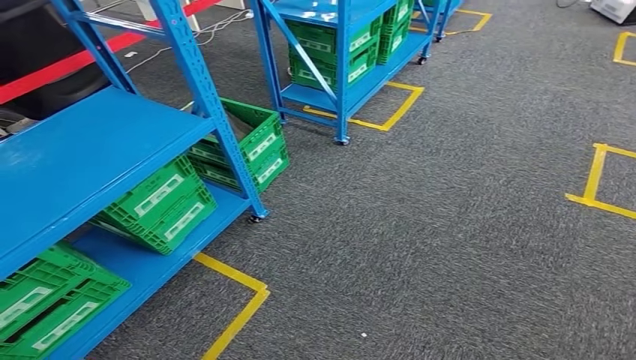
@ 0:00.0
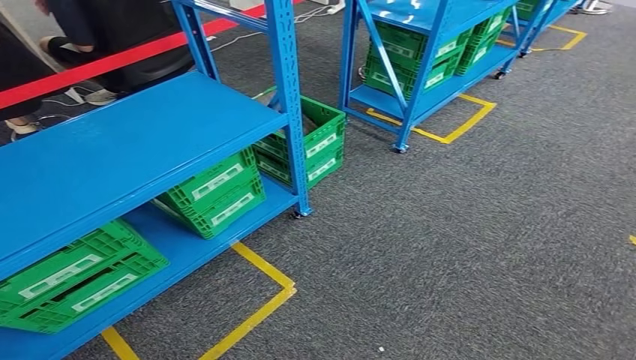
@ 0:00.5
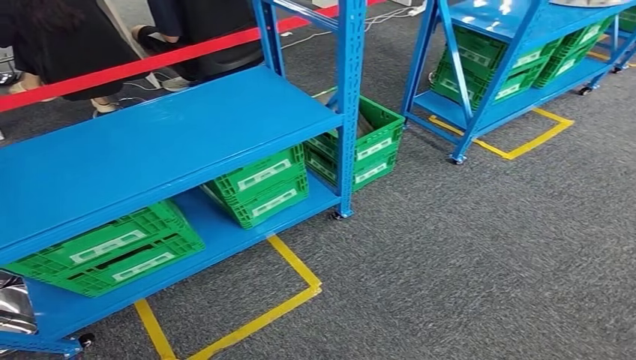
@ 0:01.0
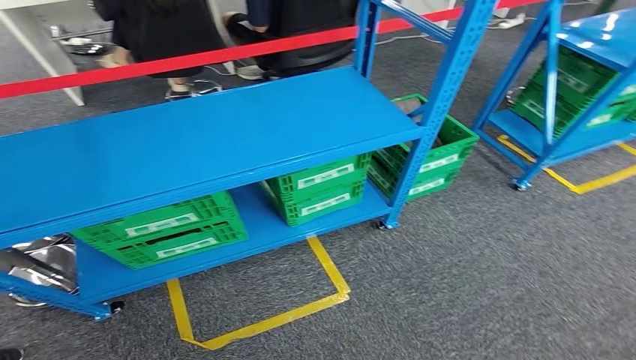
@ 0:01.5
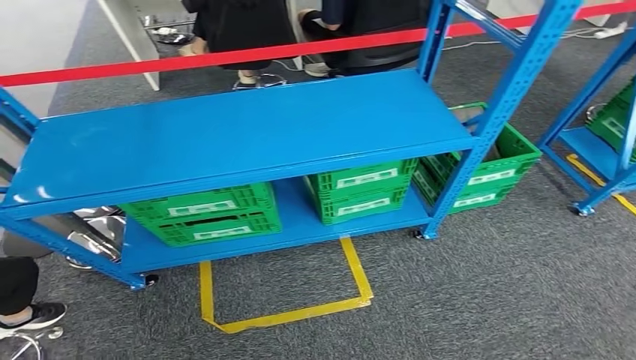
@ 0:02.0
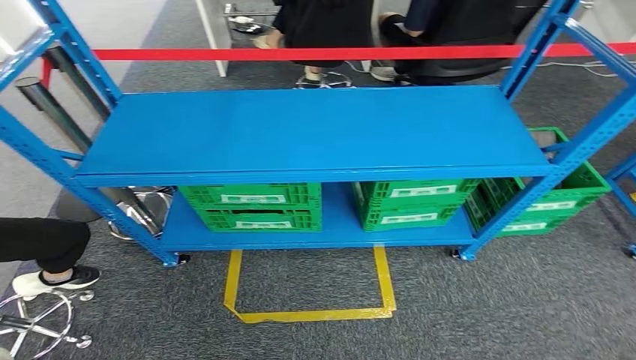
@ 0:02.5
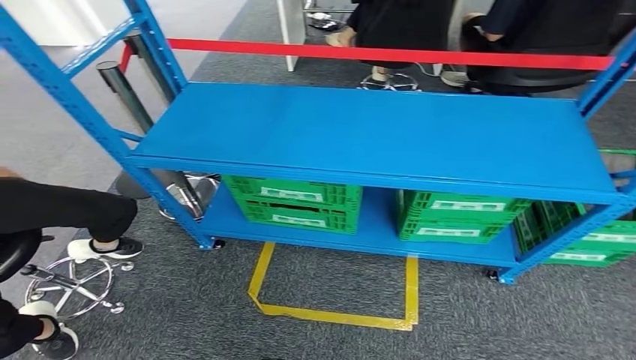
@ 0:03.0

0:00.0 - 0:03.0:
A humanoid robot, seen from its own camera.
Step, 0:00.0 - 0:02.5: Move to the initial position of the workbench.
